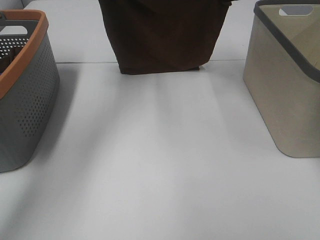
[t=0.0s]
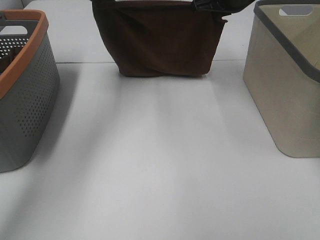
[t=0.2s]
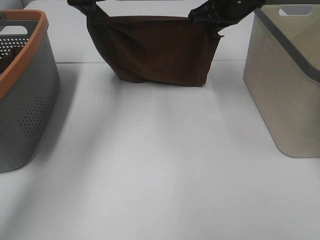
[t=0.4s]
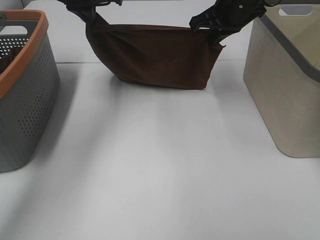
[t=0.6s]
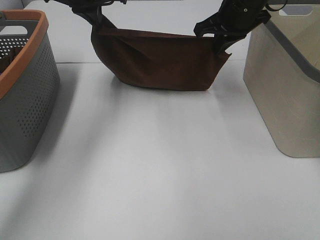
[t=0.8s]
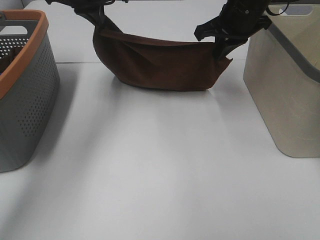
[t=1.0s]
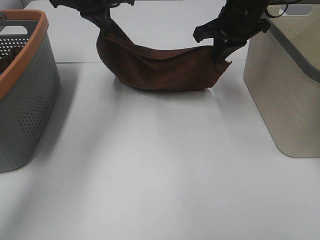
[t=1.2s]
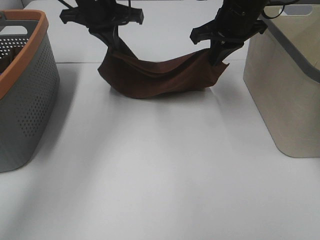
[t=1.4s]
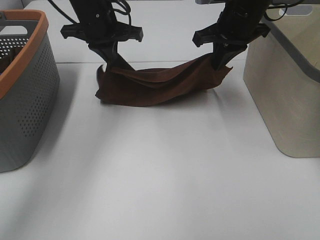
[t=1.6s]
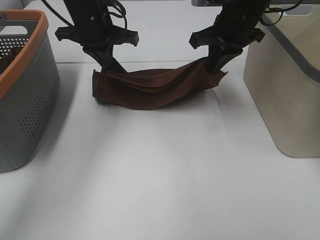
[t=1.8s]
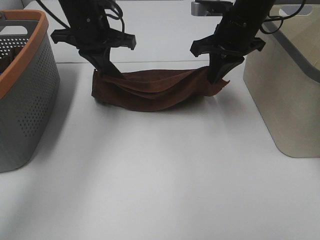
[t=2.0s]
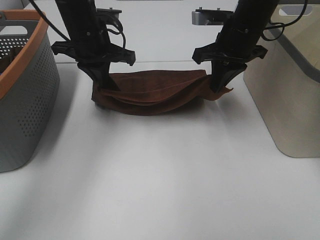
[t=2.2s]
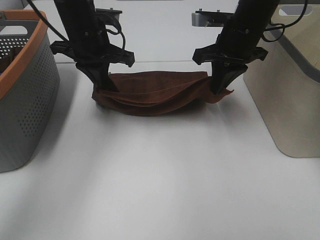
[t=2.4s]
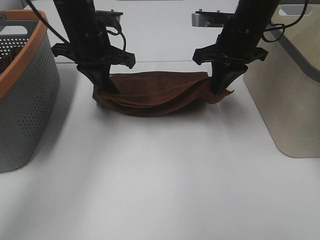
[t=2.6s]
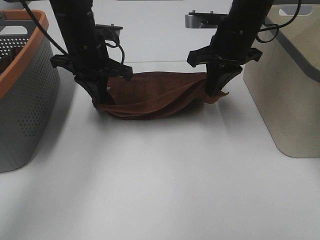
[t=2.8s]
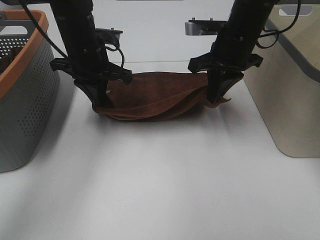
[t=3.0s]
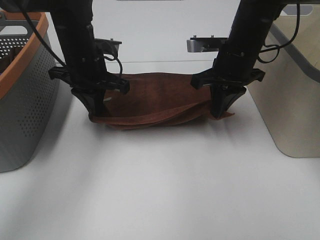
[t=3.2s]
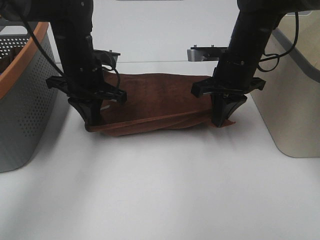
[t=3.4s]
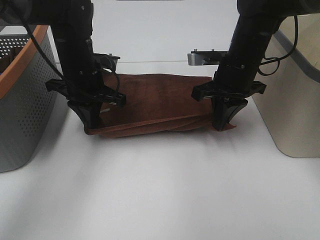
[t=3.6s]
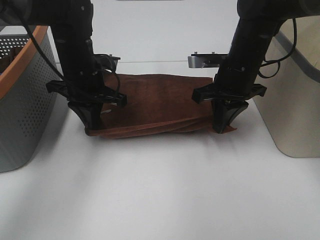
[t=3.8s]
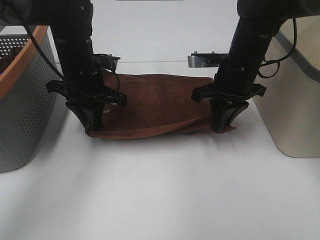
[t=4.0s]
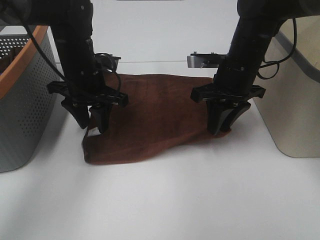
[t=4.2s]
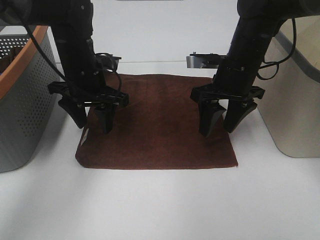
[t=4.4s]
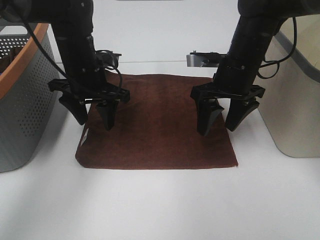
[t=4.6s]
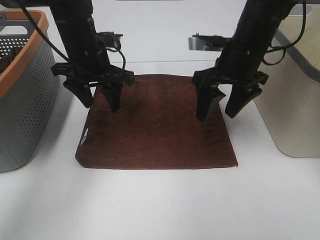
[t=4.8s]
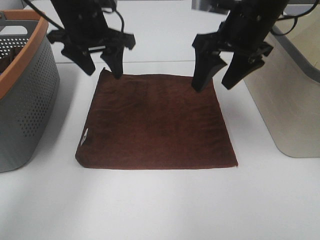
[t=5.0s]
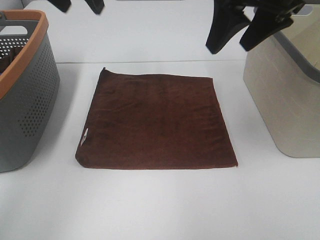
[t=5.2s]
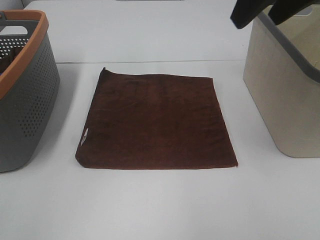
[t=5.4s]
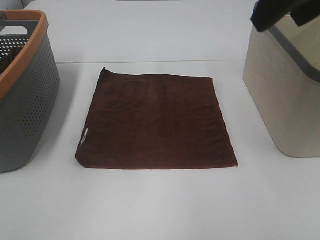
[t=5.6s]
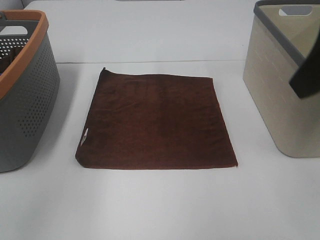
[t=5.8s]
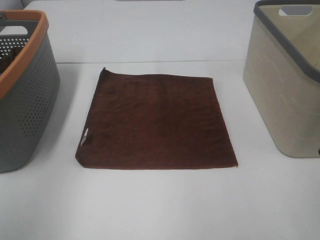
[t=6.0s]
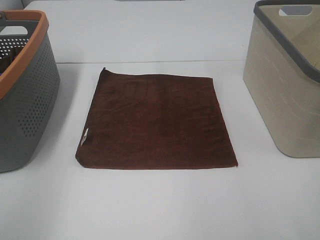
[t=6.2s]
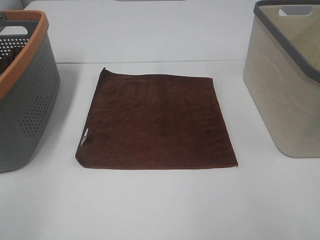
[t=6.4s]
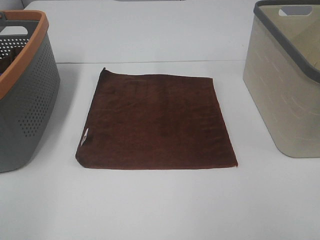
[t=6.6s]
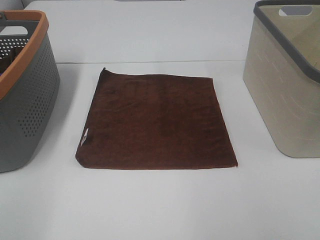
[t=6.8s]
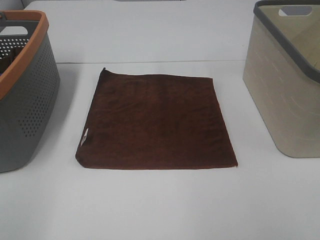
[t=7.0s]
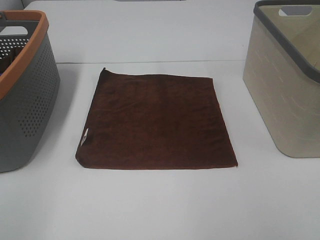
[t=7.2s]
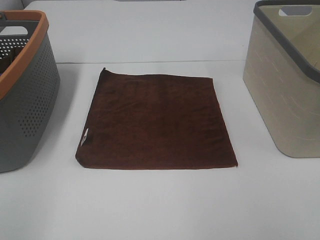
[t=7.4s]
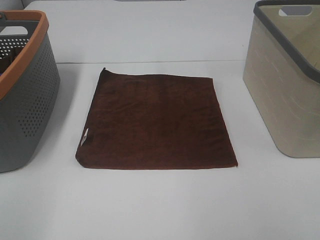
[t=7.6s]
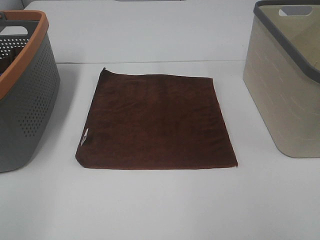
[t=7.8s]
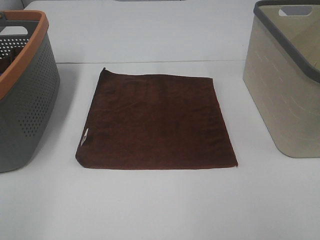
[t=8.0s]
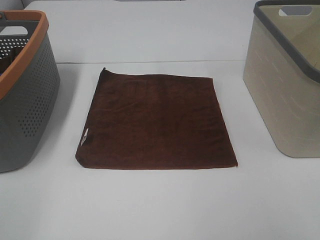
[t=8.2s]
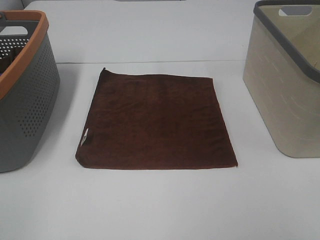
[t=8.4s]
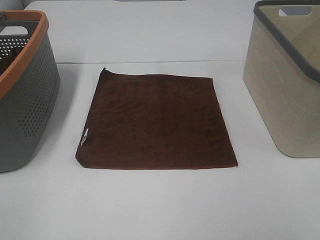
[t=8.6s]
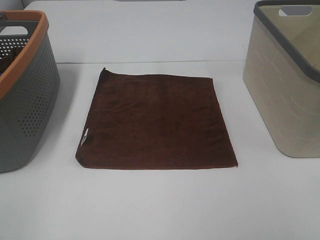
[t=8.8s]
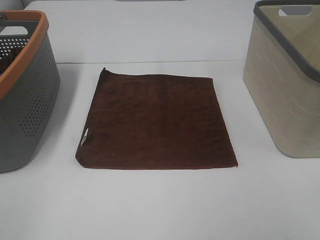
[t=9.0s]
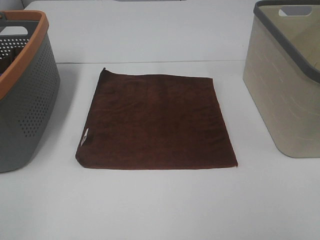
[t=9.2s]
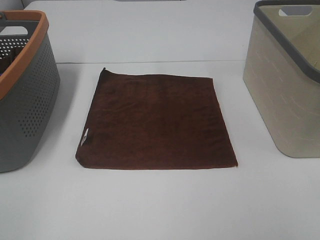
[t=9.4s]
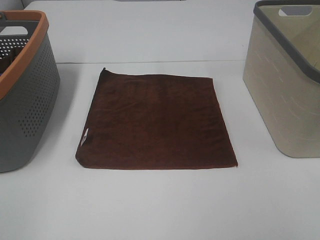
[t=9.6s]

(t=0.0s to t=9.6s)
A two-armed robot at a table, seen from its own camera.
Task of the whole recording: Remove the towel and place it.
t=0.0s - t=1.6s: The right gripper shifts roughly 5 cm backward. Meanwhile the left gripper heads downward, covering roughly 10 cm.
t=1.6s - t=3.2s: The right gripper heads downward, covering about 5 cm; the left gripper shifts approximately 10 cm backward and downward.
t=3.2s - t=4.8s: The left gripper opens up. Meanwhile the right gripper opens its fingers.
t=4.8s - t=6.4s: The right gripper travels backward by about 30 cm; the left gripper shifts roughly 40 cm backward and to the left.
